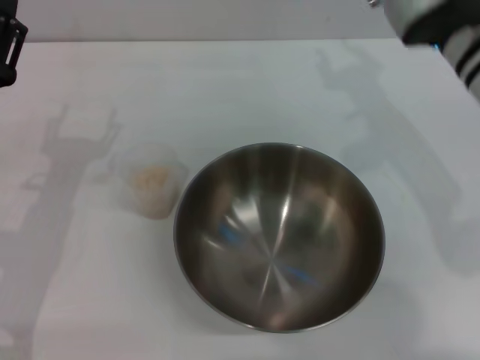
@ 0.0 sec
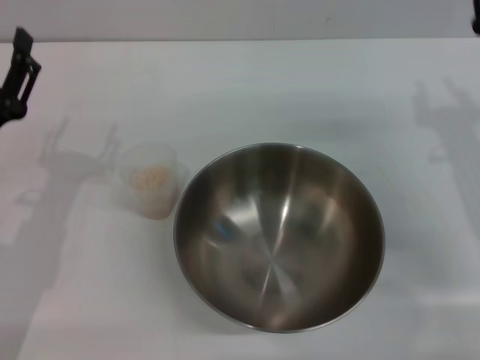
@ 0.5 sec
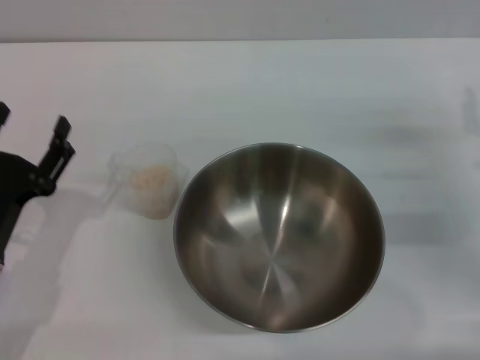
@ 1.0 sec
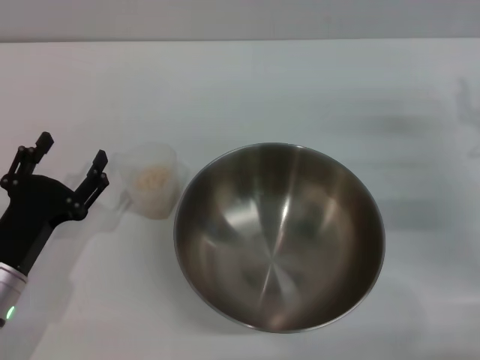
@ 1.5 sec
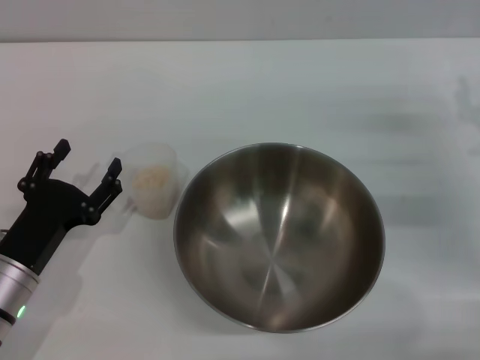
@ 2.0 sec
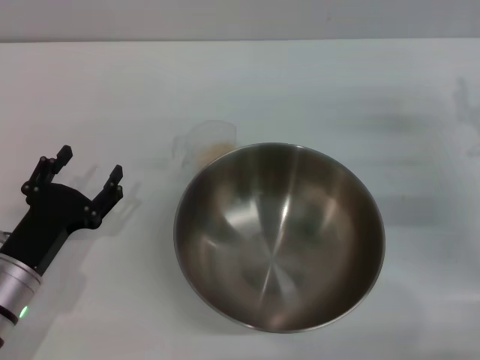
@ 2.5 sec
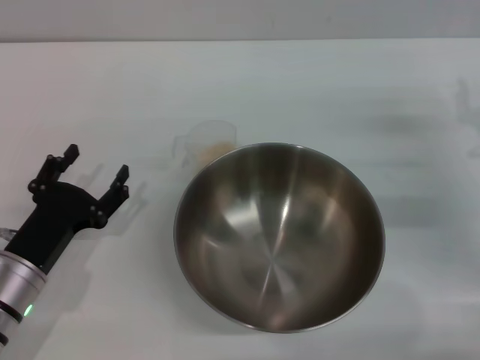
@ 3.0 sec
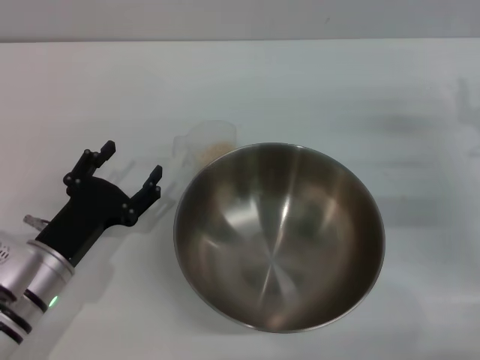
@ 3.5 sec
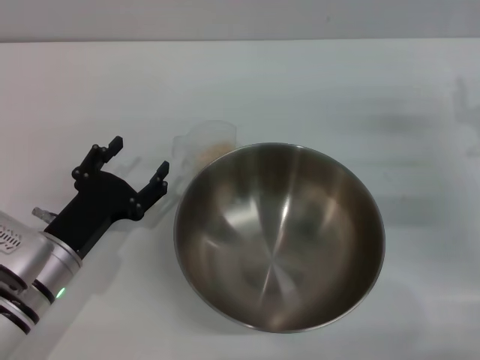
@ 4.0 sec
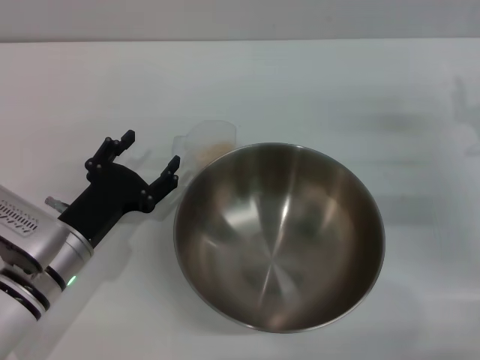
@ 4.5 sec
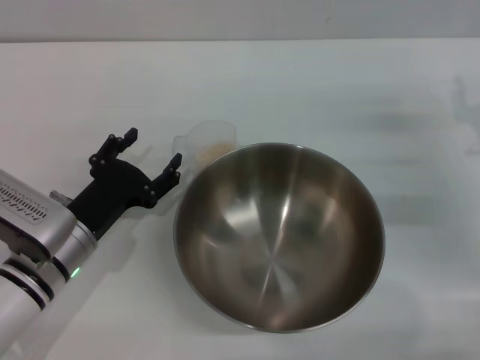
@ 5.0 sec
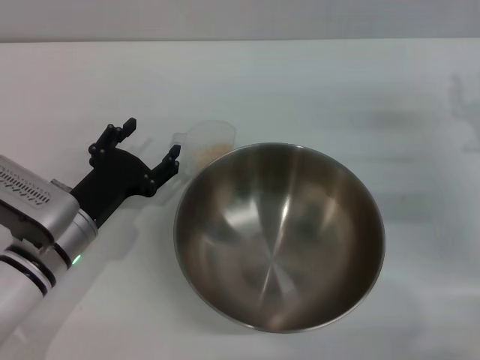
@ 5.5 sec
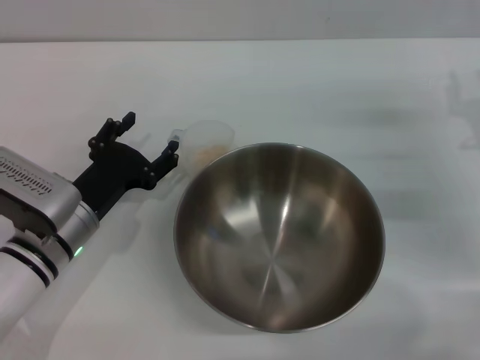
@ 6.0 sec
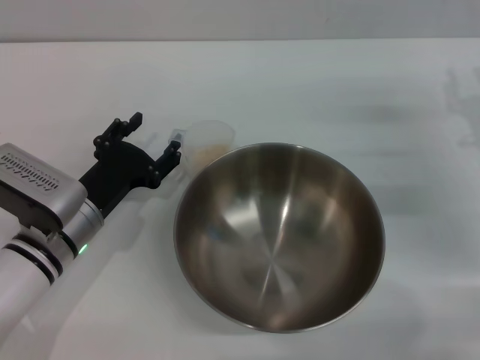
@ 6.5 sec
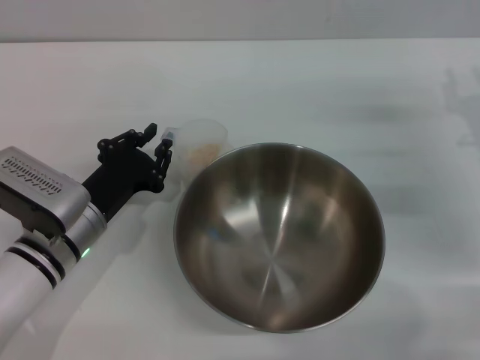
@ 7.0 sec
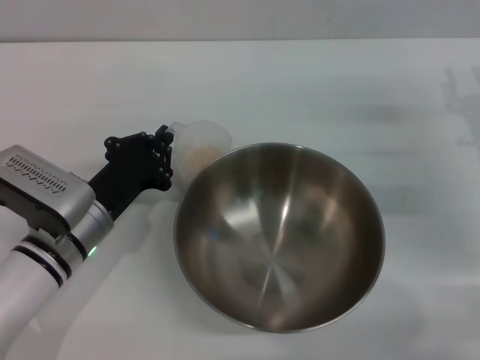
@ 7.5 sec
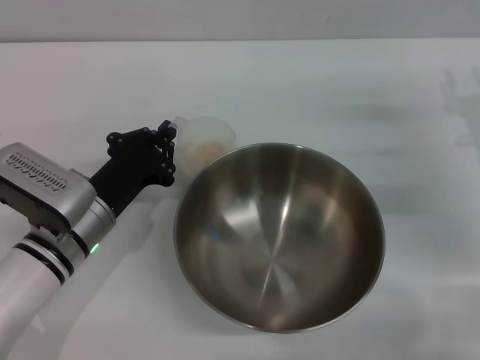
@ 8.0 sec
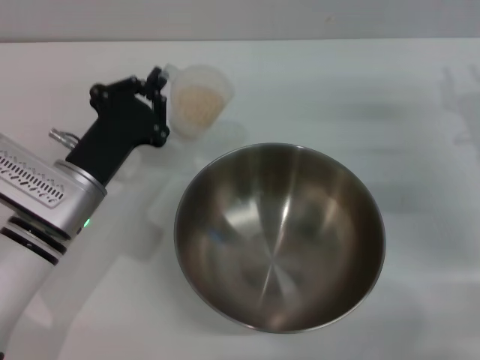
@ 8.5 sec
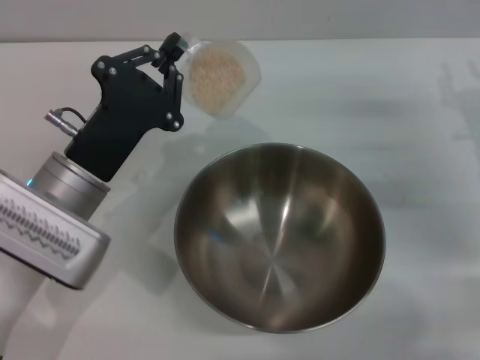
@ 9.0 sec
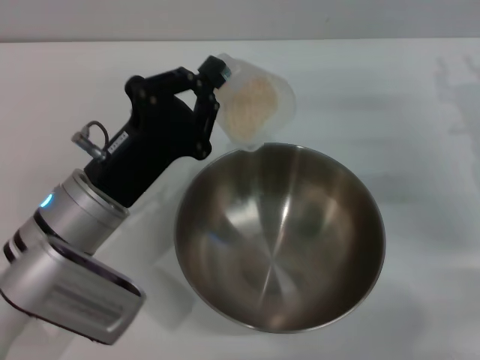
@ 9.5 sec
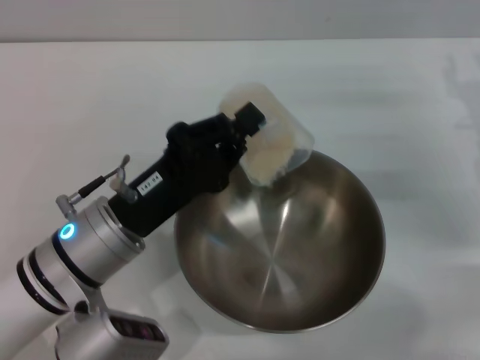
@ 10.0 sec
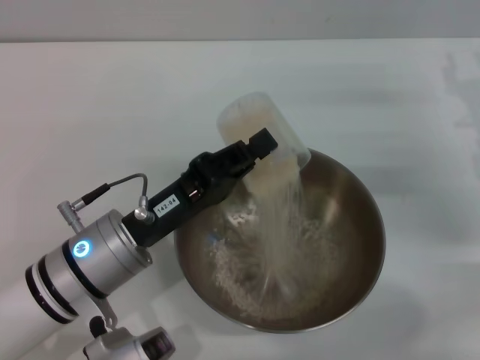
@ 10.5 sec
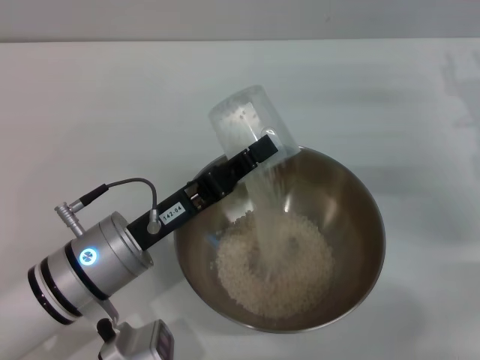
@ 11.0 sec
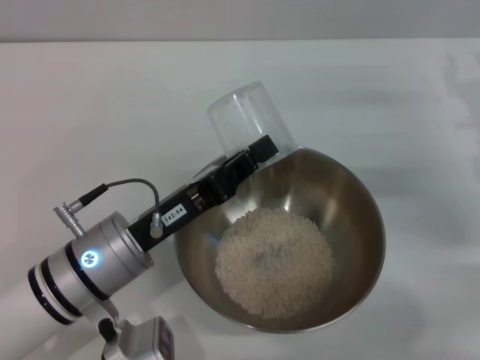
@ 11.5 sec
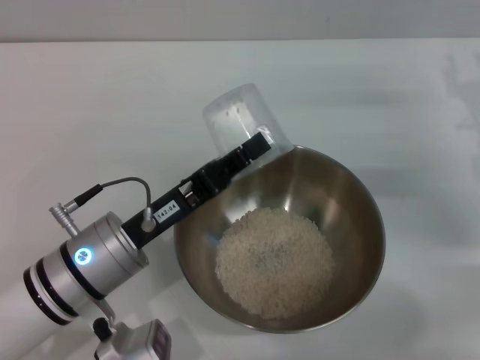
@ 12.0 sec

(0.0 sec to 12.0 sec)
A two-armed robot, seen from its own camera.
Task of the whole recording: Place the bowl in the middle of the table with one hand and pour the rice from the grain cup into it with the other hand.
Step, 0.0 sec - 8.0 sec: Pick up the cup with rice in it with the left gripper.
0.0 sec - 2.0 sec: The right gripper travels to the right and downward by about 20 cm, while the left gripper shifts about 10 cm downward and backward.
2.0 sec - 4.0 sec: The grippers move only a little.
4.0 sec - 6.0 sec: The grippers stay close to where they were, moving slightly.
6.0 sec - 8.0 sec: The left gripper closes its fingers.
8.0 sec - 10.0 sec: The left gripper shifts by about 5 cm.

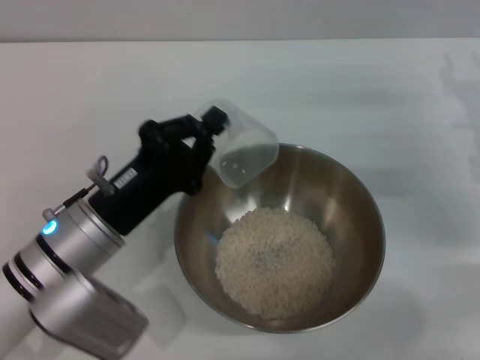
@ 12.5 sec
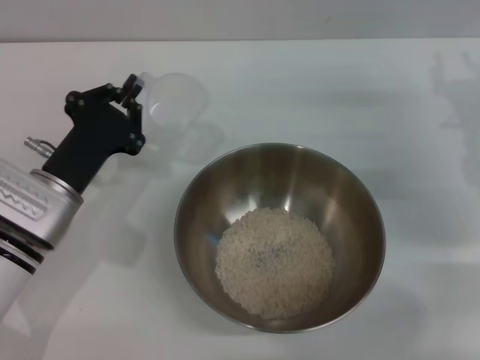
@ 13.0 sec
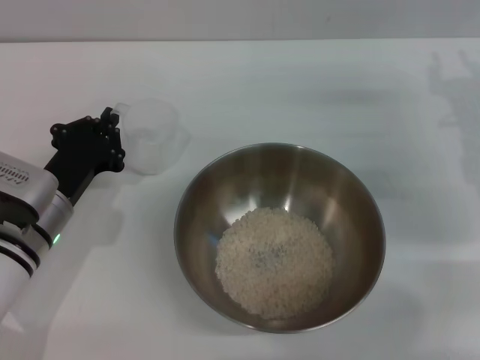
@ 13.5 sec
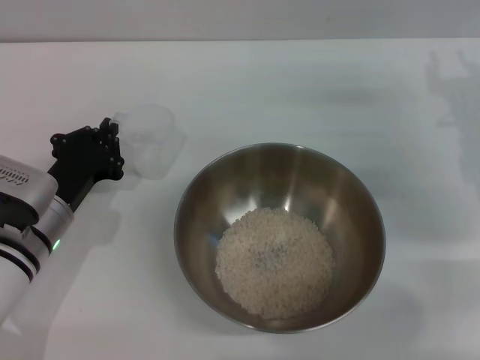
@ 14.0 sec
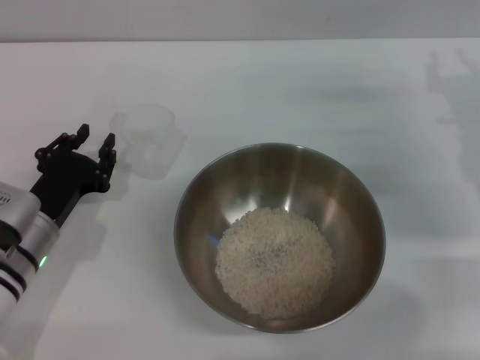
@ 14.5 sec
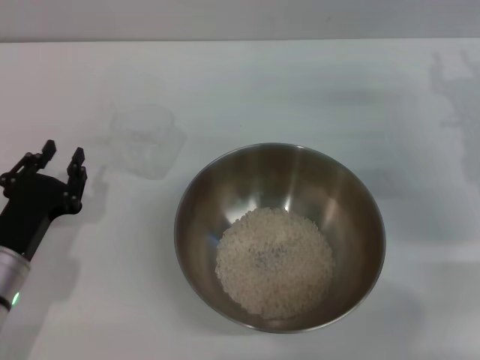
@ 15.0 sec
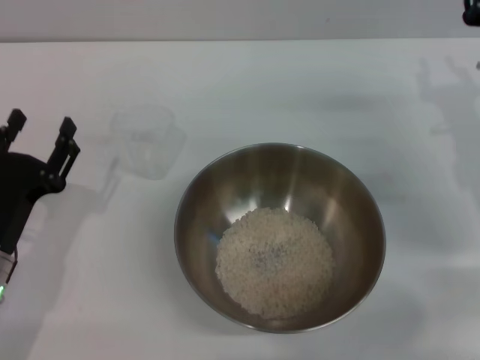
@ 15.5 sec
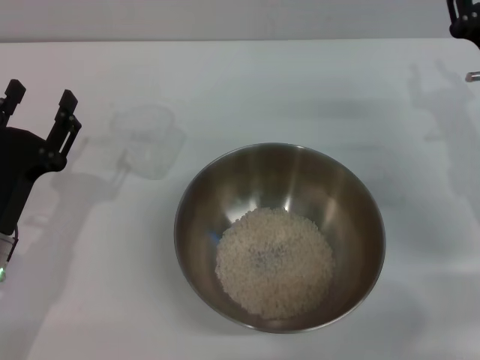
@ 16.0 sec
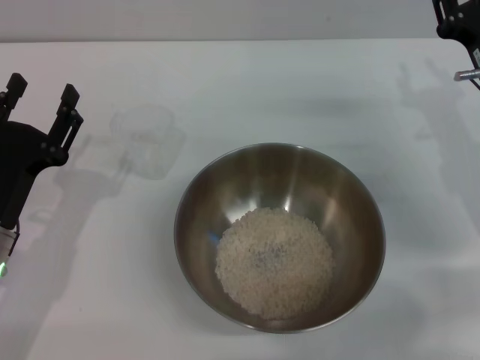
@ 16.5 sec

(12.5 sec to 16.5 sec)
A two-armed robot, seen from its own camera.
Task of the whole recording: Place the bowl in the middle of the table with one hand and pour the rice from the grain cup into it with the other hand.
Step, 12.5 sec - 15.5 sec: Place the cup on the table with the left gripper.
12.5 sec - 14.5 sec: The left gripper goes roughly 5 cm to the left.
14.5 sec - 16.5 sec: The left gripper changes place by some 5 cm, and opens its fingers.
